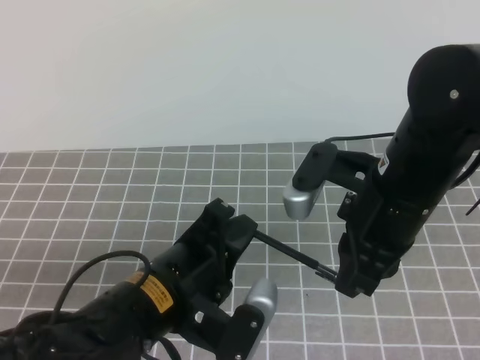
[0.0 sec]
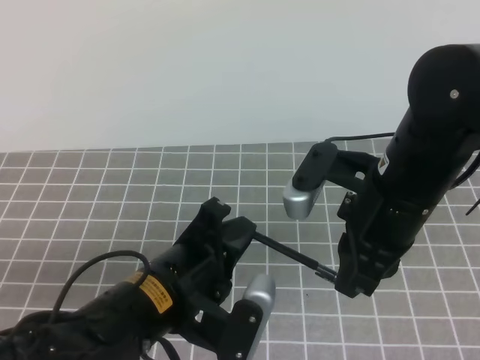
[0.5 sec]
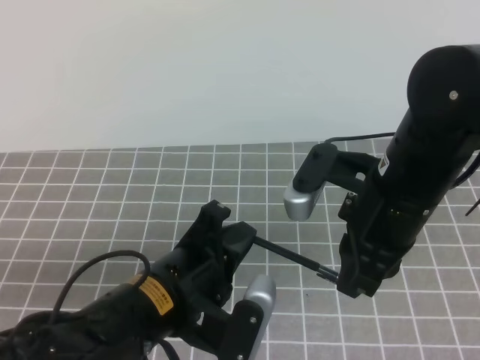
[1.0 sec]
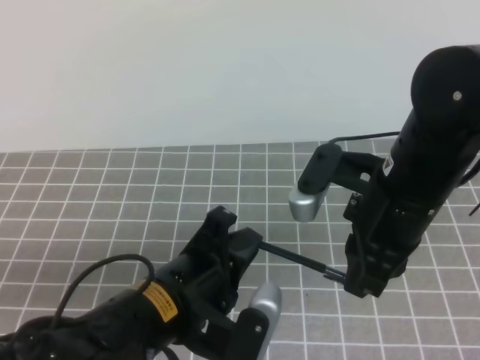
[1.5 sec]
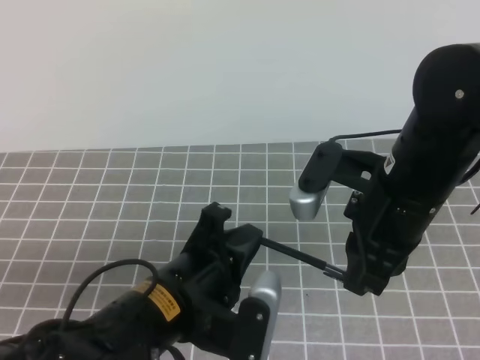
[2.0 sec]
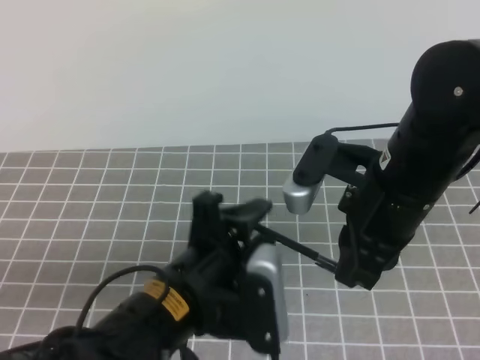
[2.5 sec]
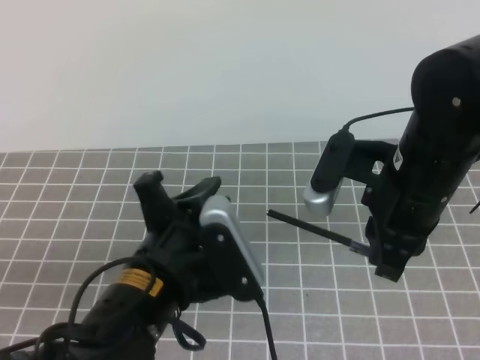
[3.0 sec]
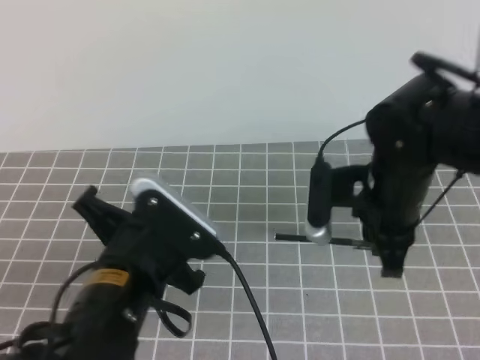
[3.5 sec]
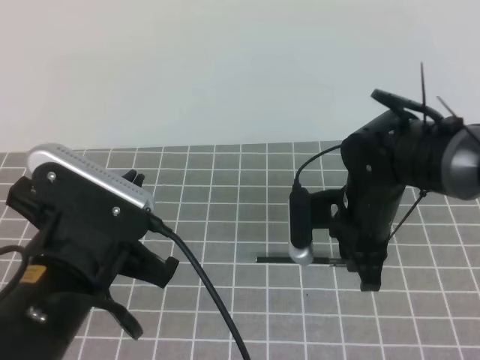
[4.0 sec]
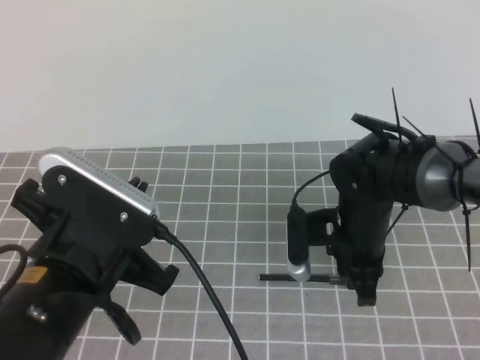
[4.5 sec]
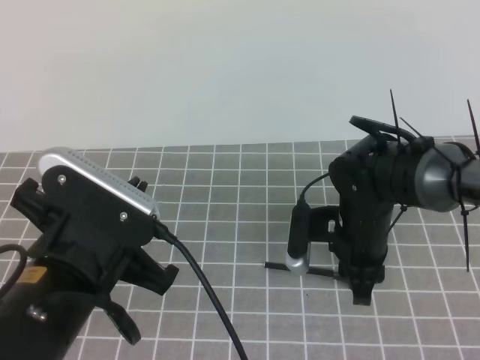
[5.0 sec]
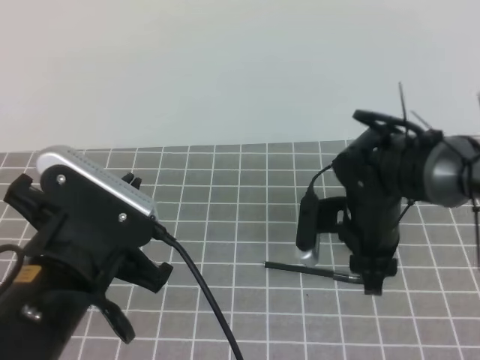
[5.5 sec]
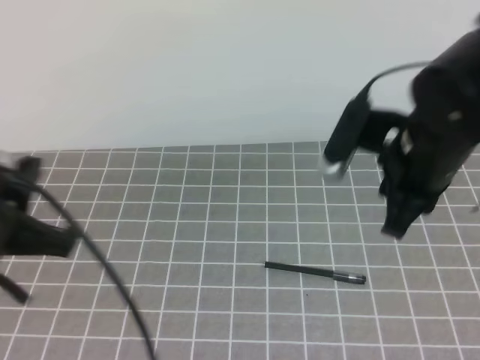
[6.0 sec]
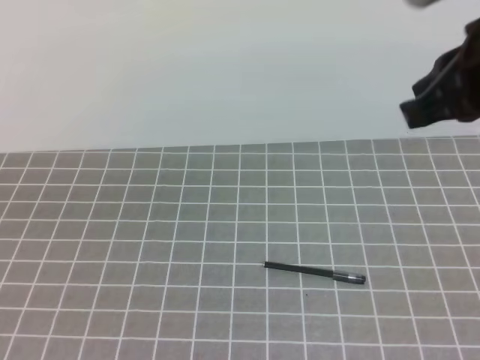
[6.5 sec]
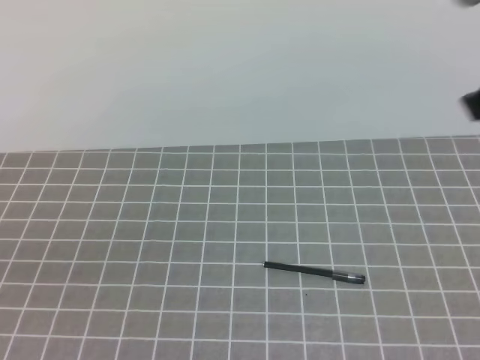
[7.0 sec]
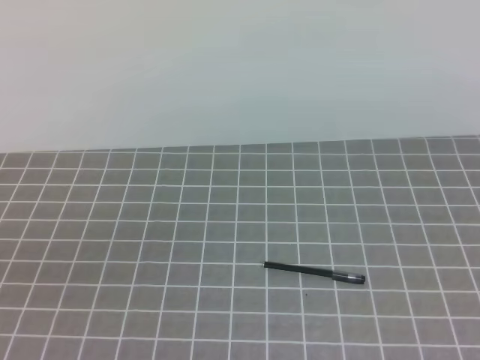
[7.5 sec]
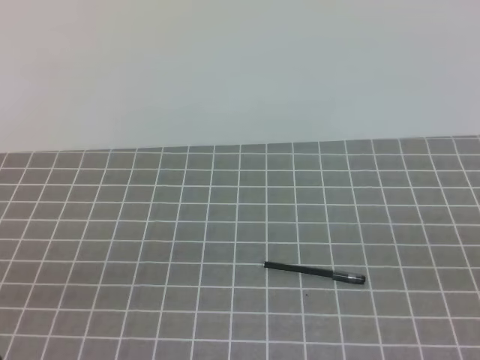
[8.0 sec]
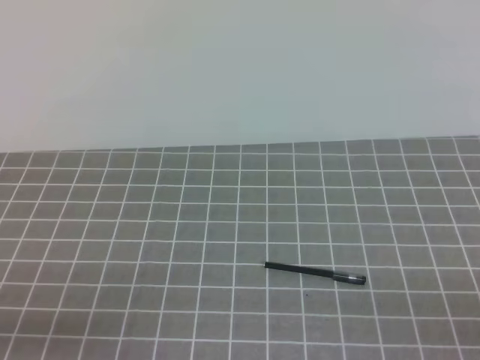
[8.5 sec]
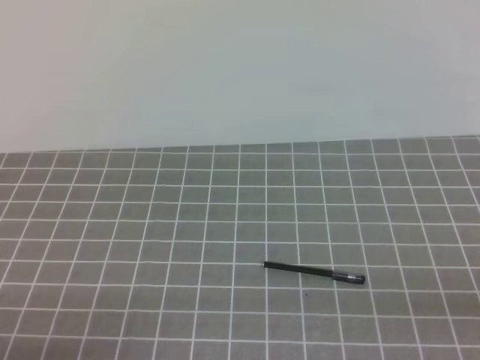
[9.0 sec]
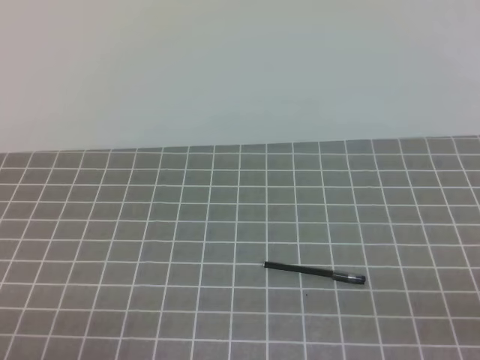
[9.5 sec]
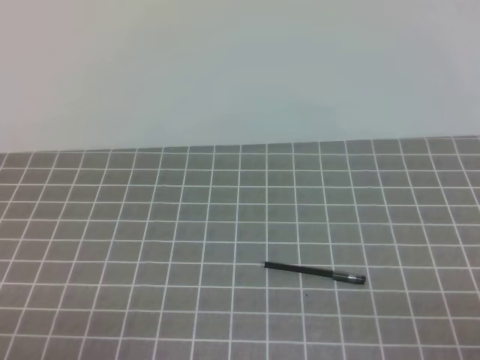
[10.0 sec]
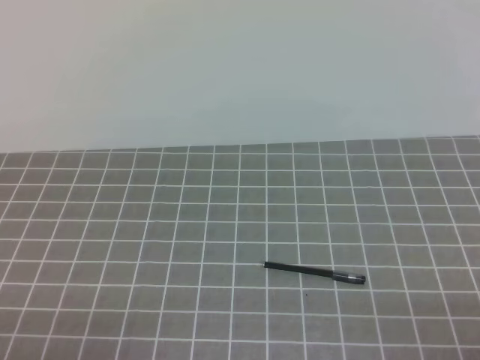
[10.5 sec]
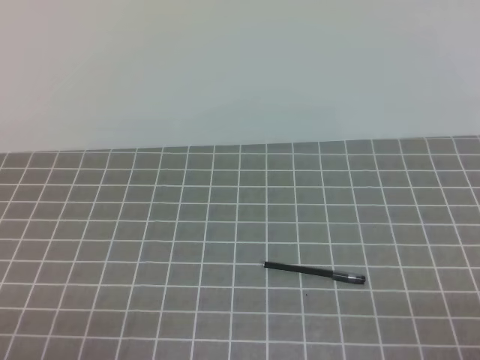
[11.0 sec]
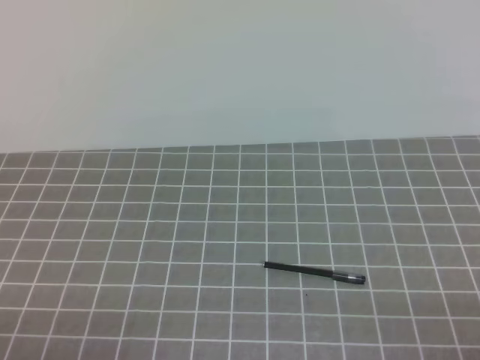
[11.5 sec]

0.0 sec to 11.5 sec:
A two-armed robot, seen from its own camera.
Task of the whole recording: on the grey tablecloth, hold the pen cap in one hand and the pen in the other, then cover the pen cap.
Step, 0.0 sec to 11.5 sec: Put the cap on the pen.
0.0 sec to 2.0 sec: There are only small adjustments of the grippers.
2.0 sec to 4.0 sec: The left gripper travels to the left and upward by roughly 10 cm, and opens, then closes again; the right gripper shifts approximately 10 cm downward and forward.
4.0 sec to 6.0 sec: The right gripper heads upward, covering approximately 10 cm, and opens, then closes once more, while the left gripper goes approximately 10 cm to the left.
6.0 sec to 7.5 sec: The left gripper heads backward and to the left, covering roughly 15 cm. Meanwhile the right gripper shifts some 25 cm to the right, backward and upward, and closes up.
7.5 sec to 9.5 sec: The right gripper is displaced downward and backward by some 25 cm.
